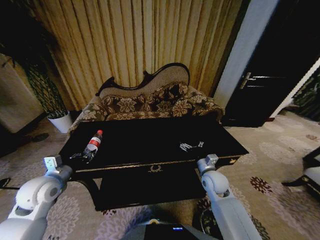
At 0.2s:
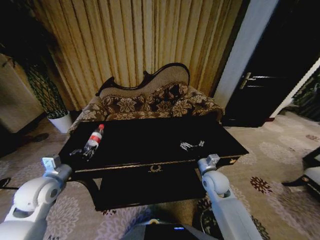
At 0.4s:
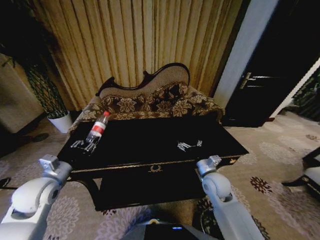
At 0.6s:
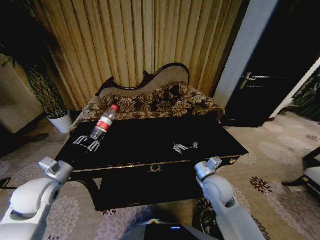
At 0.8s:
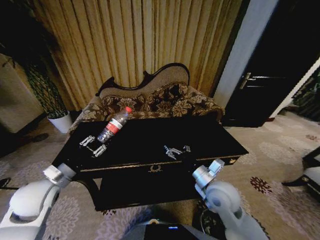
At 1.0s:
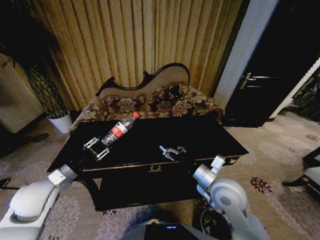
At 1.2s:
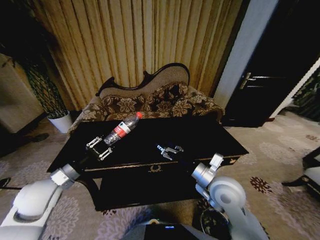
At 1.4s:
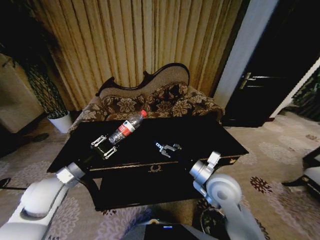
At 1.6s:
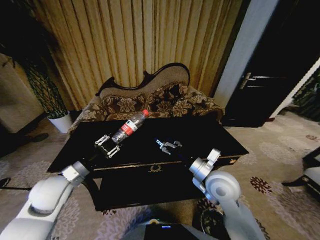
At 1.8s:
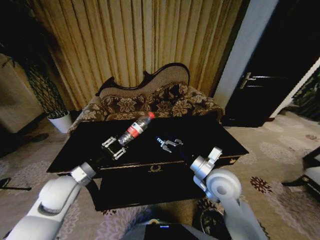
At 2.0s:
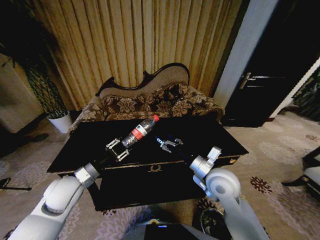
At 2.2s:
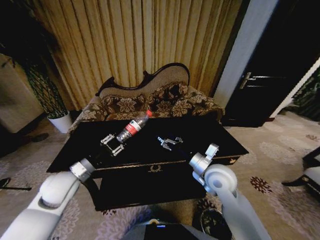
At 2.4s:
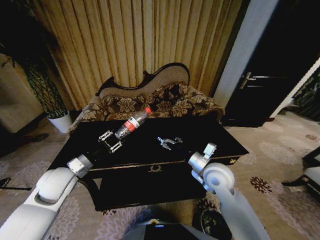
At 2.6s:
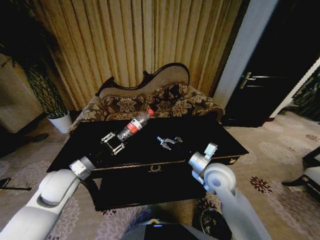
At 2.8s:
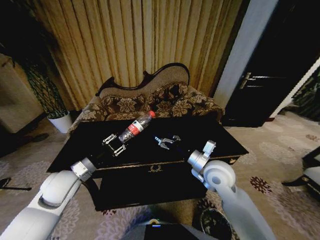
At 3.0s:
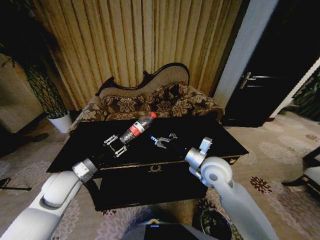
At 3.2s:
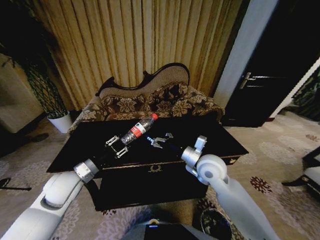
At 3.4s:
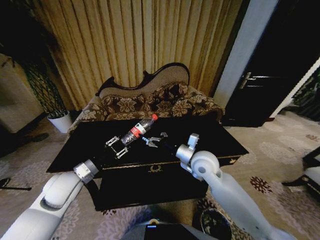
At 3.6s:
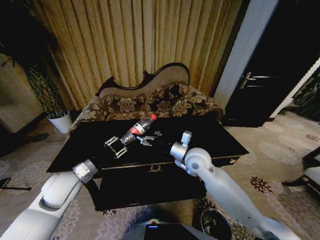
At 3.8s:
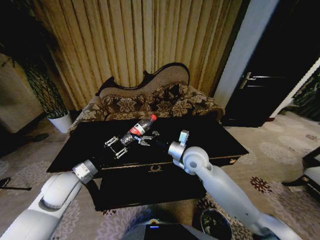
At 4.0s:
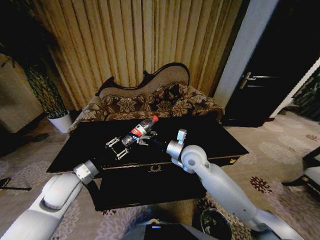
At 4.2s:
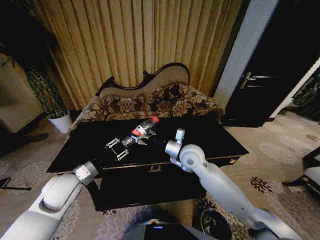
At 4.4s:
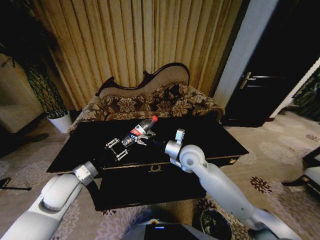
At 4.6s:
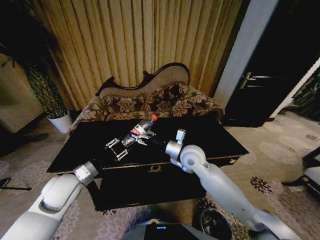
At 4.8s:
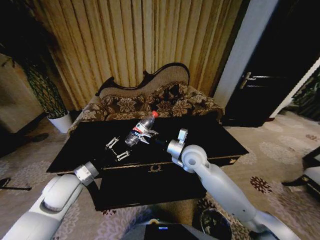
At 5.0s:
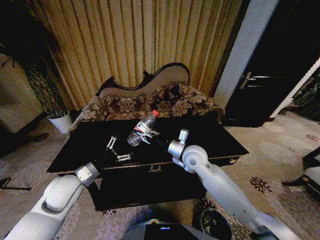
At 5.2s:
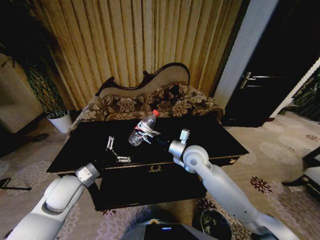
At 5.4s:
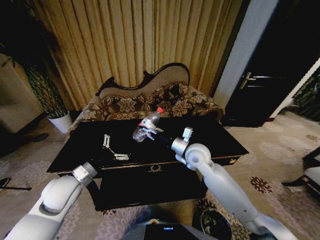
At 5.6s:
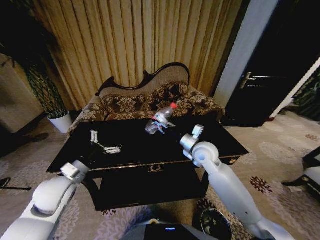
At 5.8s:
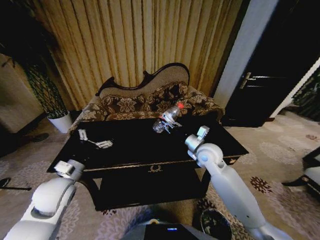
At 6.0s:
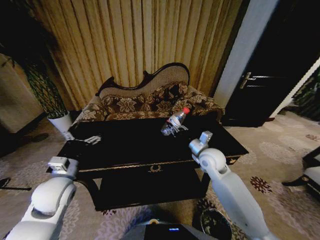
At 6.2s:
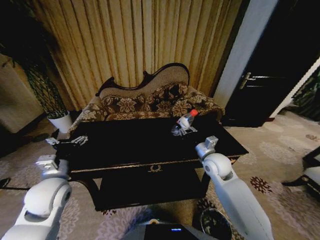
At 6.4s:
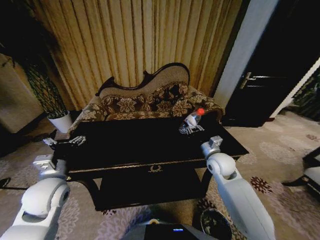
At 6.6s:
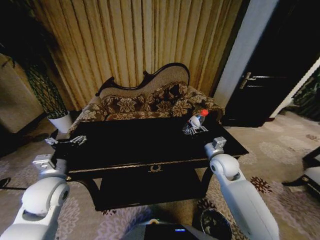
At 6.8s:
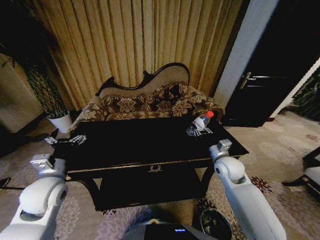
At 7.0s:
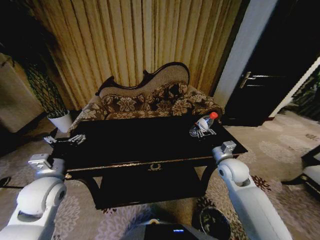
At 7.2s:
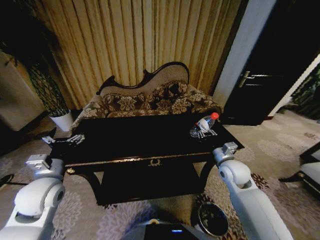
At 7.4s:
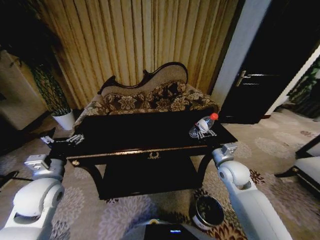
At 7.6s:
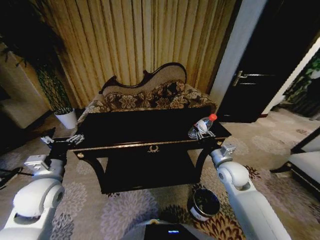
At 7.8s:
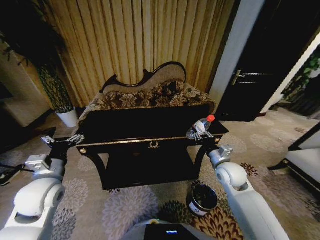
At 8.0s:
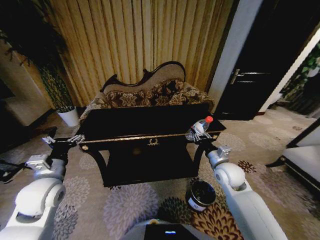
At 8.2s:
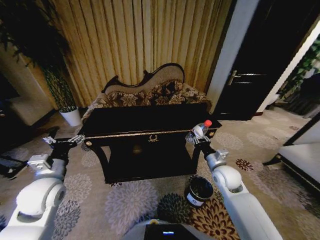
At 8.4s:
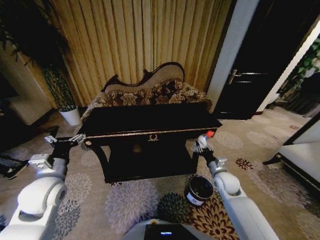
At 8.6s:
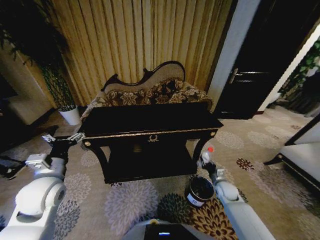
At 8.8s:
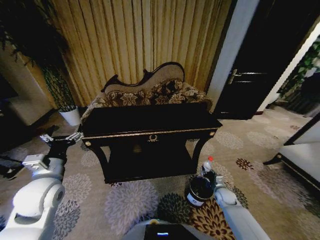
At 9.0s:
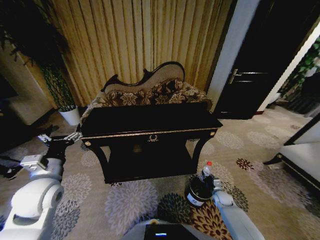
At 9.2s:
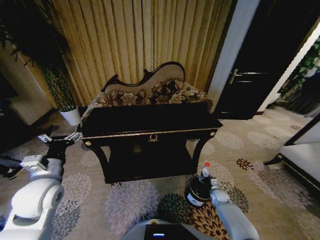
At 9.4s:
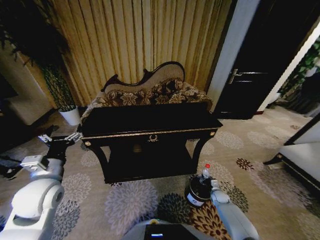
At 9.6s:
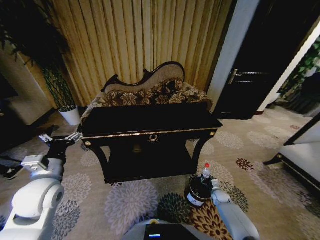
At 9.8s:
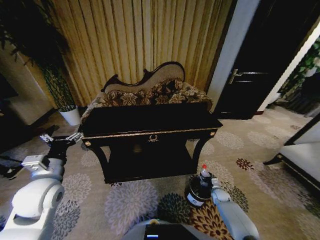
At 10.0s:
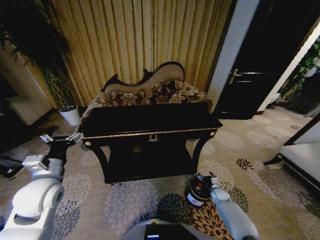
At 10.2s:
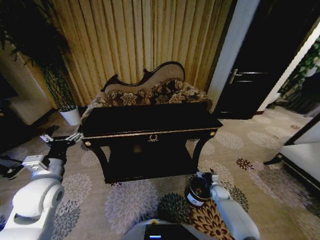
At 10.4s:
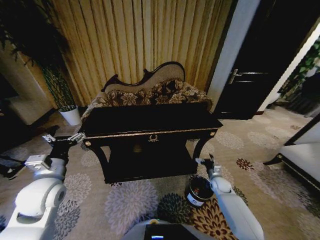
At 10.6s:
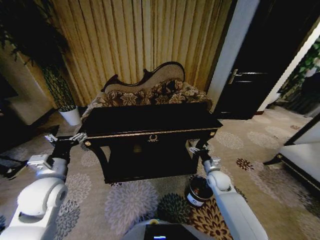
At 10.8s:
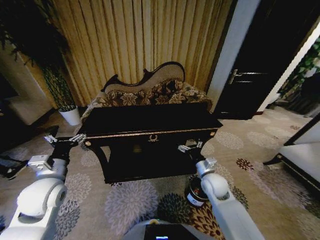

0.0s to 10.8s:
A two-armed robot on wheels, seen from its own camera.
Task of the whole recording: Move to the front of the table and place the trash on the table into the trash bin.
0.0s to 1.6s: The right gripper goes roughly 15 cm upward, backward and to the left; the left gripper goes roughly 5 cm to the right.
1.6s to 3.0s: The grippers stay close to where they were, moving slightly.
3.0s to 4.6s: The right gripper moves forward and to the left, roughly 10 cm.
4.6s to 6.2s: The right gripper heads to the right, covering some 10 cm, and closes its fingers, while the left gripper opens its fingers.
6.2s to 7.8s: The right gripper changes place by some 5 cm.
7.8s to 9.2s: The right gripper travels downward by about 30 cm.
9.2s to 10.8s: The right gripper moves upward and to the left, some 30 cm, and opens.
